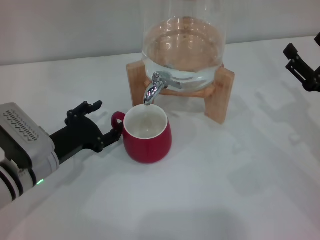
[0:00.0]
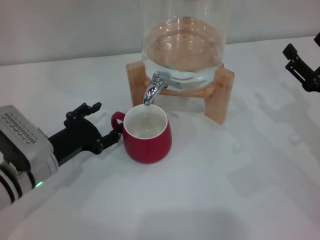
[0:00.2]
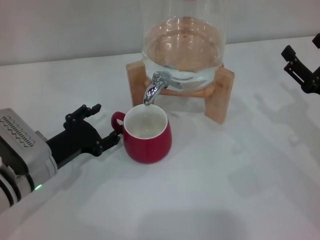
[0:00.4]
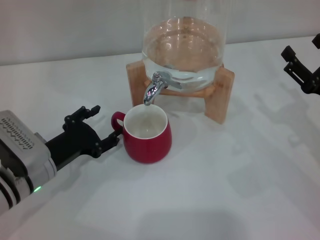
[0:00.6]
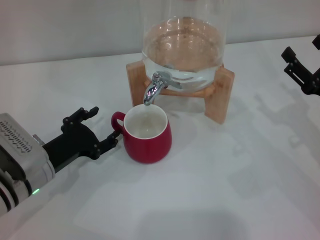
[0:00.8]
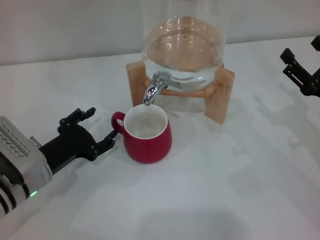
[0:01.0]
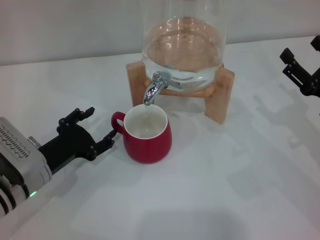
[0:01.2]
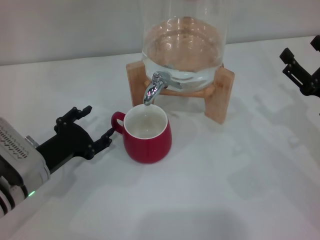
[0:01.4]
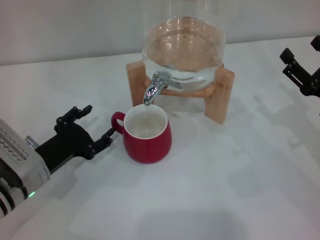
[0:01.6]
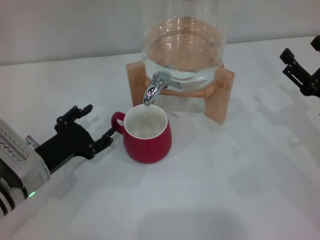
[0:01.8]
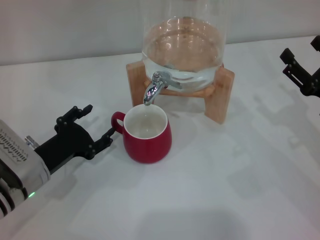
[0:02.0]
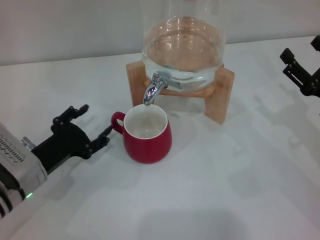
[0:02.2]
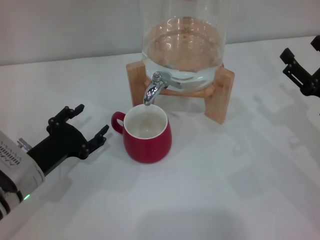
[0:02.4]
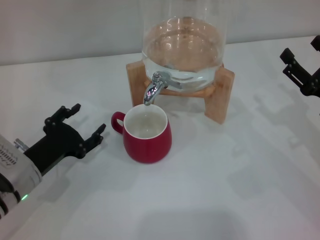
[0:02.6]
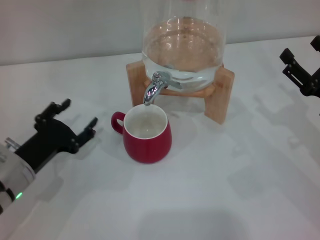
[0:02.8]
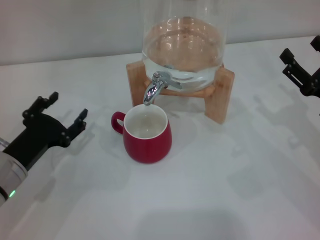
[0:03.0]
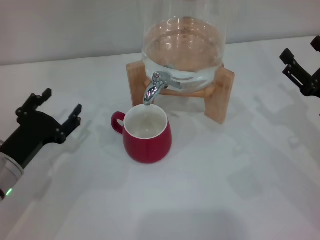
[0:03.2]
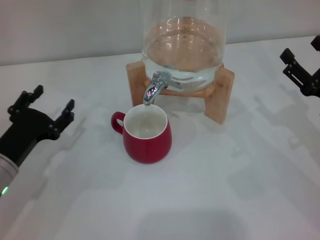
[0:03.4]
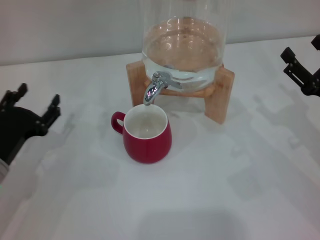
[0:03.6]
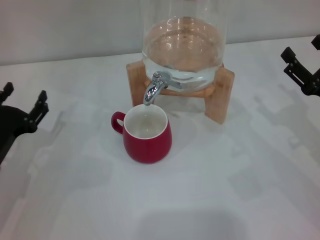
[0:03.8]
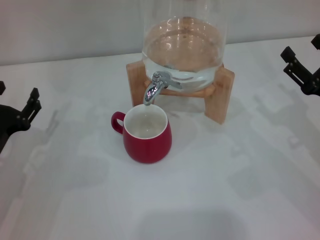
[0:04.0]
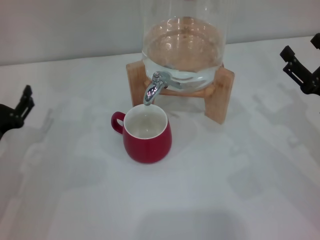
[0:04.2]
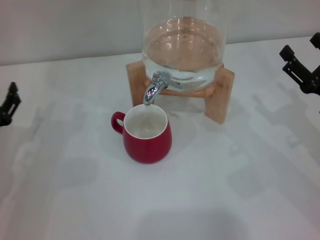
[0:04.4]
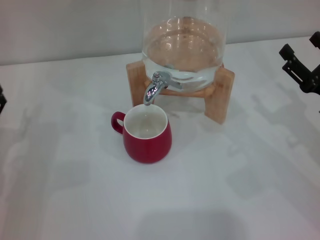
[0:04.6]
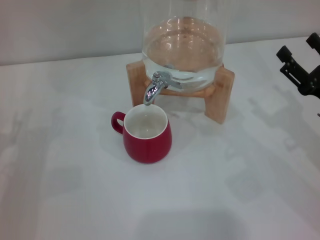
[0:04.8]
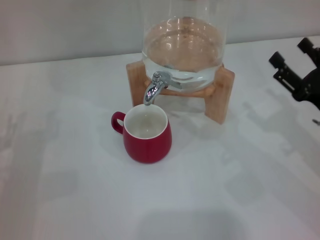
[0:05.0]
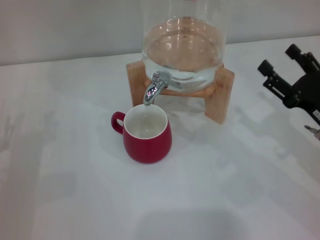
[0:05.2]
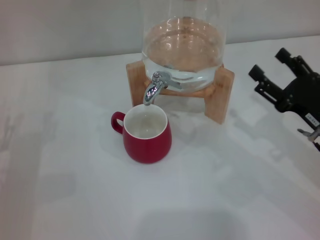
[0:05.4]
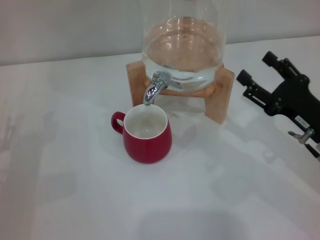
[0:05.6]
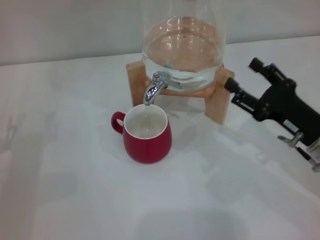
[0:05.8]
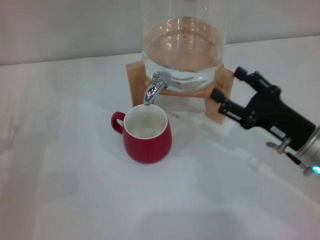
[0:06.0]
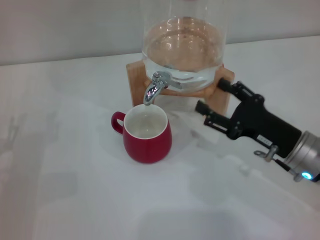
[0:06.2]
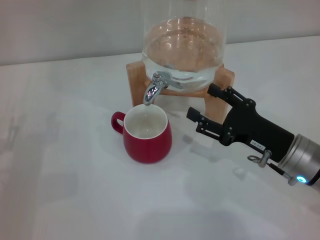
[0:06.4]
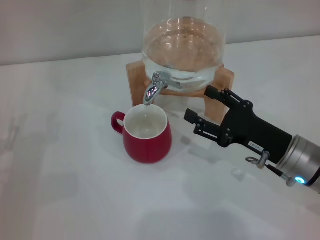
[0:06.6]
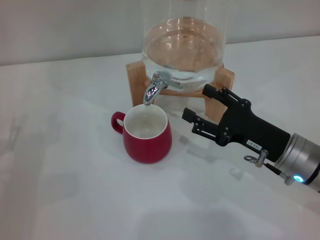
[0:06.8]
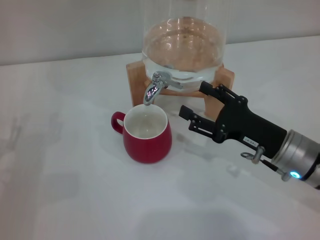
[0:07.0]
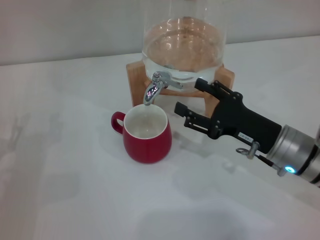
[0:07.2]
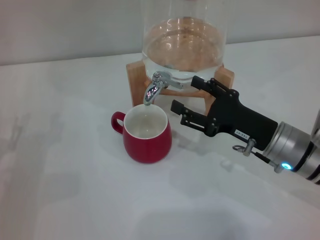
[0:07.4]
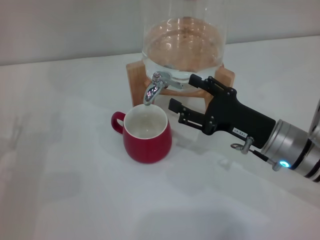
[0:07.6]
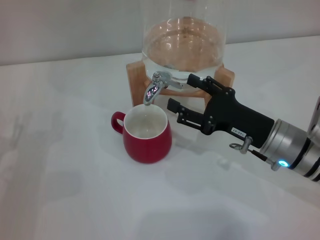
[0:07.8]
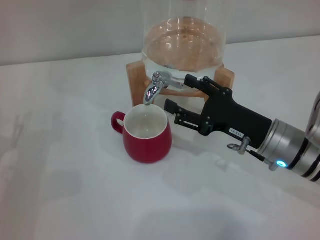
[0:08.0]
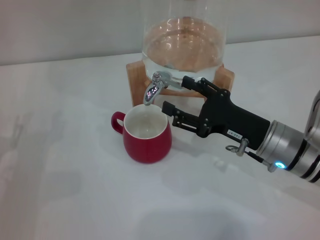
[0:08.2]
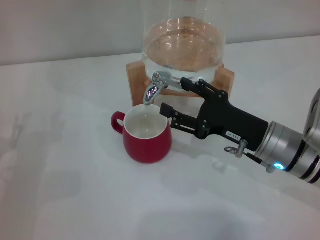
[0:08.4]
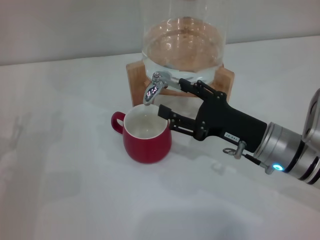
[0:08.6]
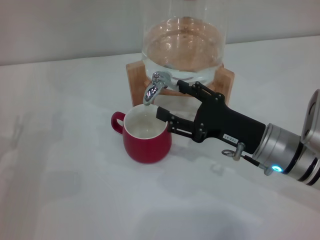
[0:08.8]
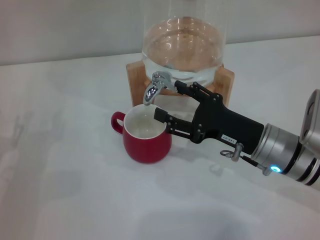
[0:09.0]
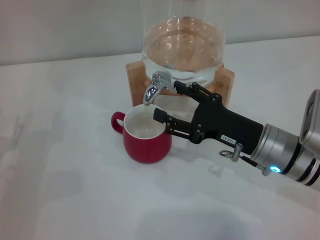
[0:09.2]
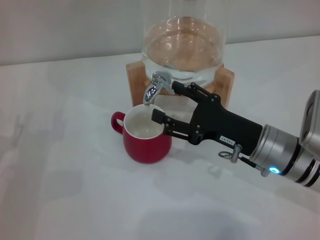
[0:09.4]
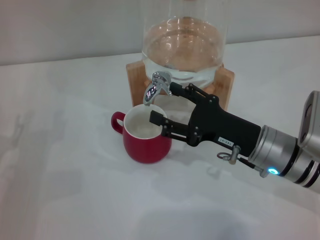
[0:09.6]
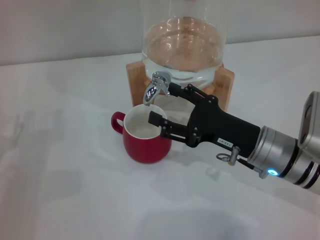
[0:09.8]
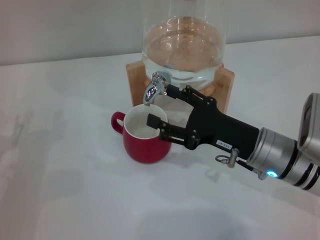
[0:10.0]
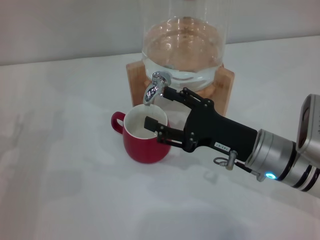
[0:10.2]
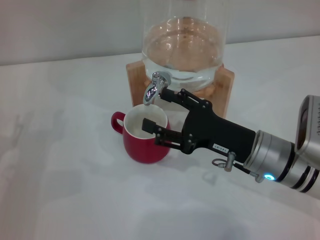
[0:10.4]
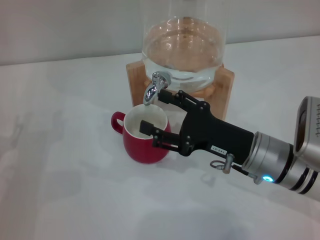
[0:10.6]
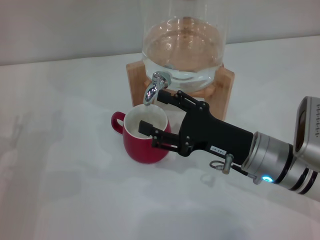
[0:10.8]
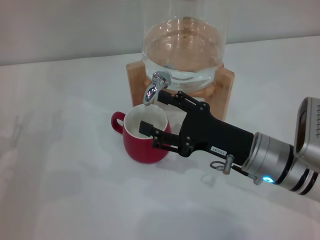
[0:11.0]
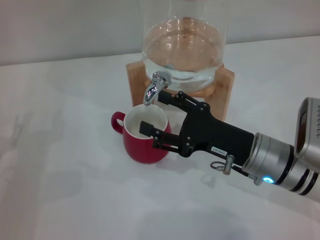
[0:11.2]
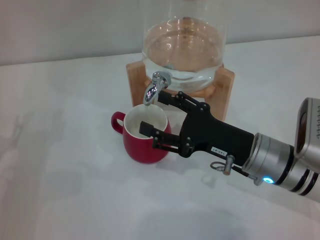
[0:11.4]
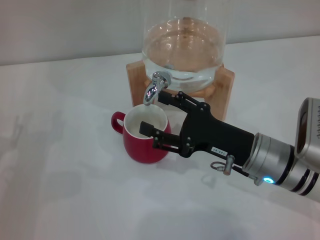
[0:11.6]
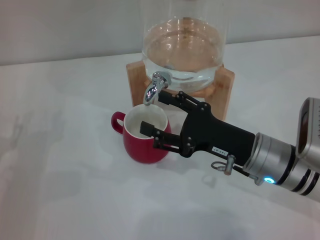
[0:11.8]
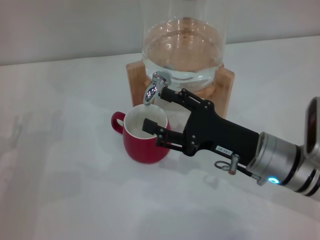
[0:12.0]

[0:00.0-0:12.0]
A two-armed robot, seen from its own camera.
Task of the whole recording: the left gripper pick up the red cup and place it horizontally under the faucet, the right gripper turn on the faucet to fill the cup, and then turn off the faucet.
Step, 0:01.0 to 0:12.0: Open the dispenser valve and fill the cup with water with the right gripper.
0:00.0 to 0:03.0: The grippers stay close to where they were, moving slightly.
0:04.4 to 0:06.0: The right gripper shifts about 5 cm to the left.
0:06.0 to 0:07.6: The grippers make only small movements.
0:07.6 to 0:10.4: The grippers make only small movements.
0:10.4 to 0:12.0: The two grippers keep their place.

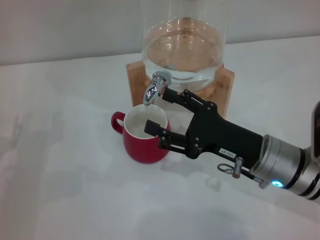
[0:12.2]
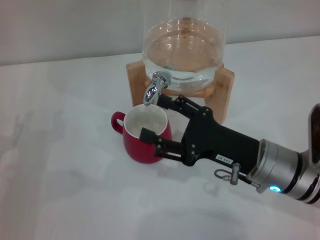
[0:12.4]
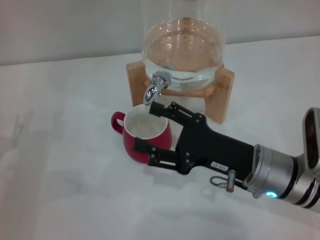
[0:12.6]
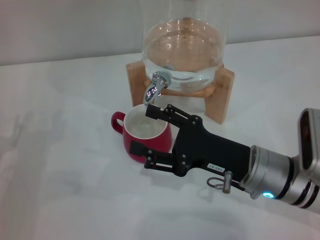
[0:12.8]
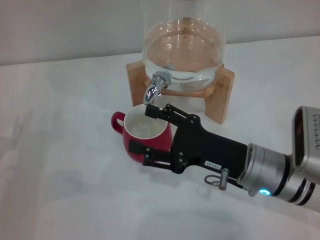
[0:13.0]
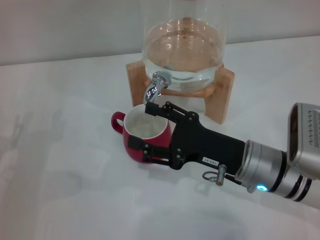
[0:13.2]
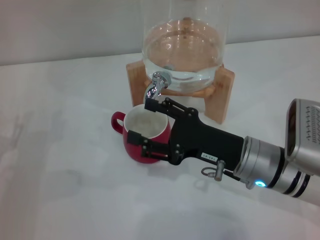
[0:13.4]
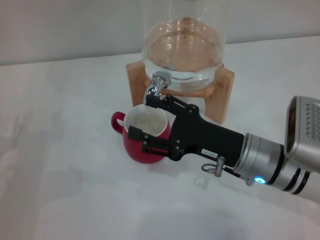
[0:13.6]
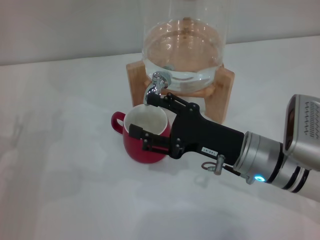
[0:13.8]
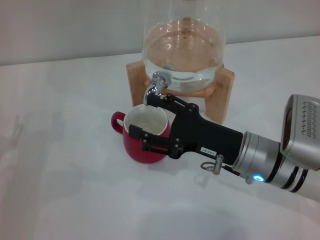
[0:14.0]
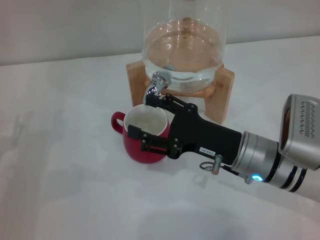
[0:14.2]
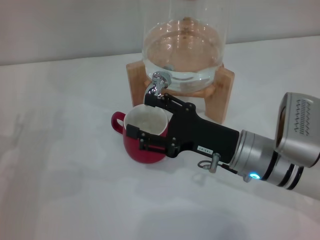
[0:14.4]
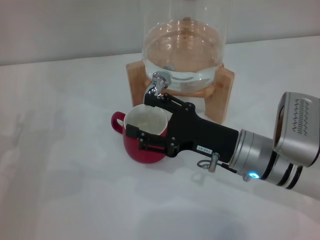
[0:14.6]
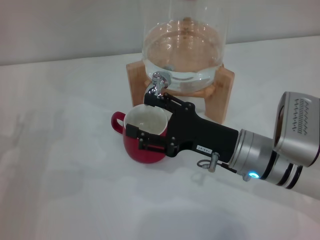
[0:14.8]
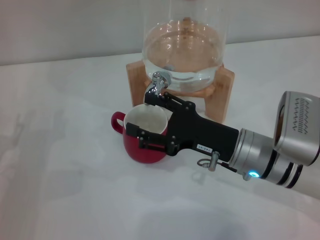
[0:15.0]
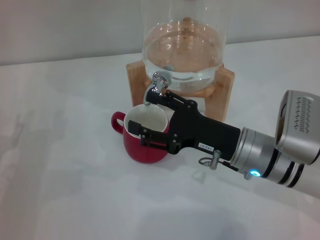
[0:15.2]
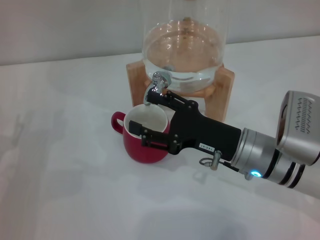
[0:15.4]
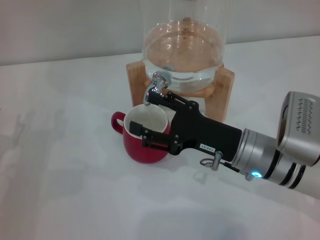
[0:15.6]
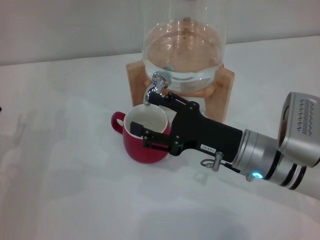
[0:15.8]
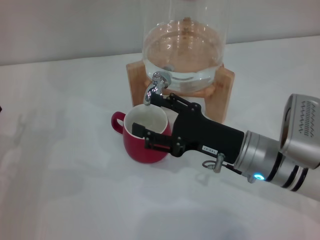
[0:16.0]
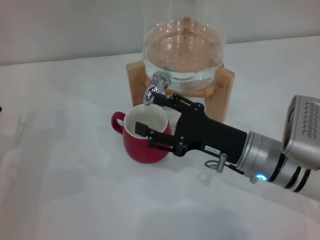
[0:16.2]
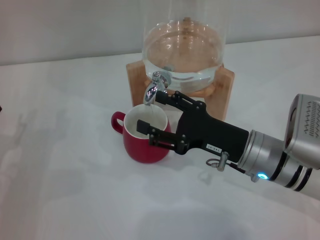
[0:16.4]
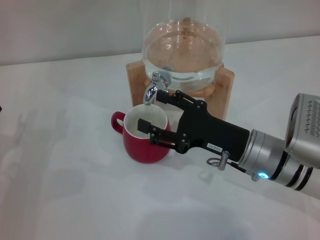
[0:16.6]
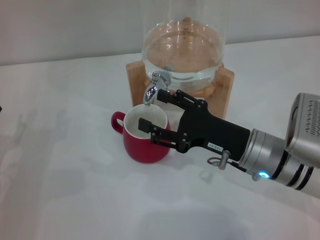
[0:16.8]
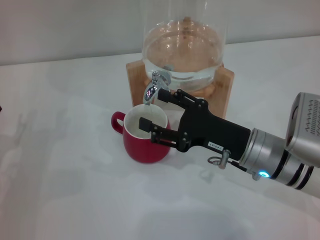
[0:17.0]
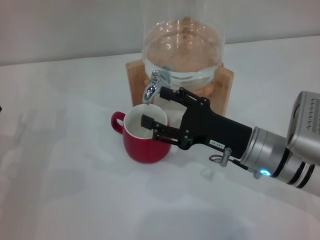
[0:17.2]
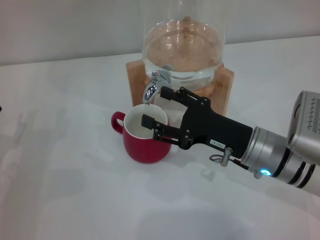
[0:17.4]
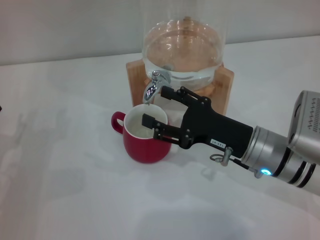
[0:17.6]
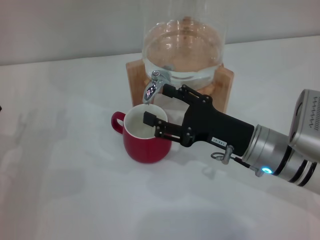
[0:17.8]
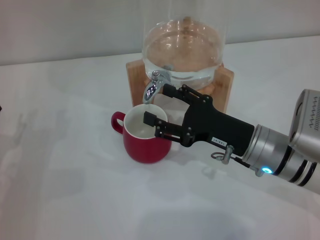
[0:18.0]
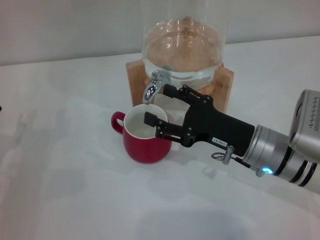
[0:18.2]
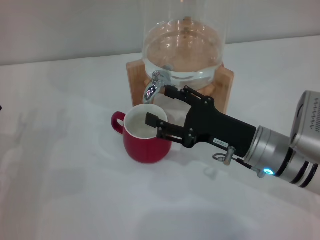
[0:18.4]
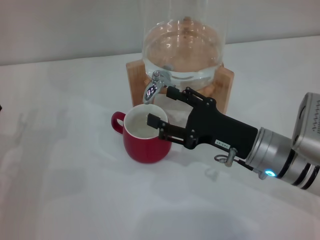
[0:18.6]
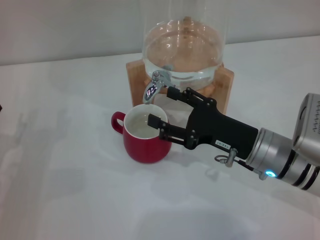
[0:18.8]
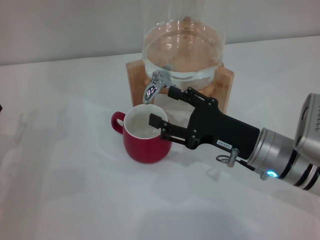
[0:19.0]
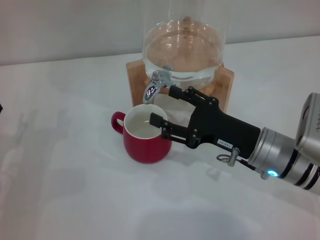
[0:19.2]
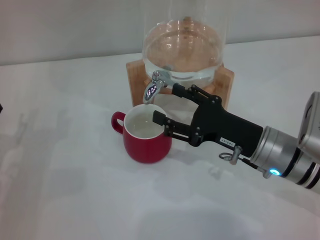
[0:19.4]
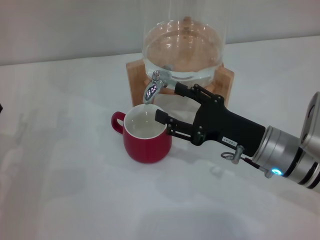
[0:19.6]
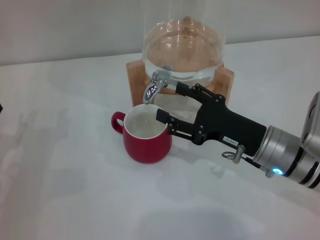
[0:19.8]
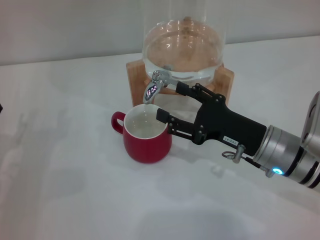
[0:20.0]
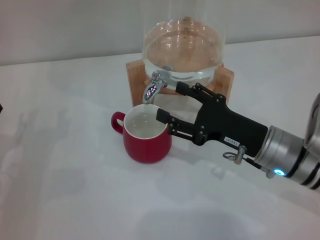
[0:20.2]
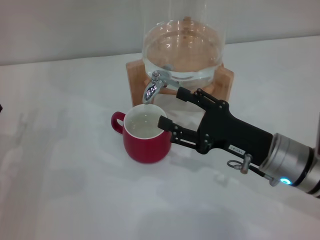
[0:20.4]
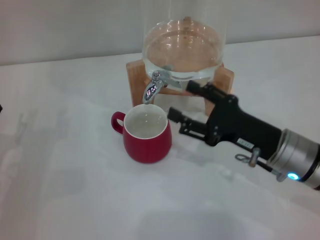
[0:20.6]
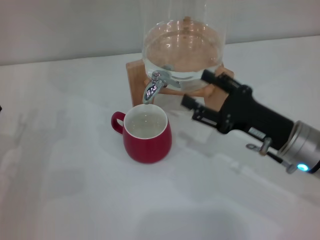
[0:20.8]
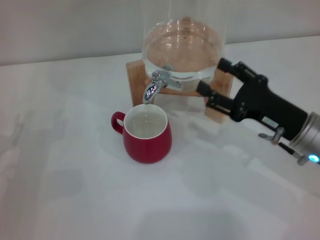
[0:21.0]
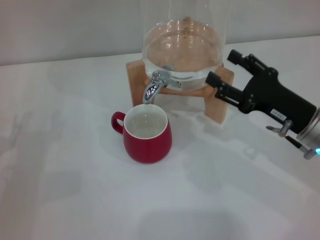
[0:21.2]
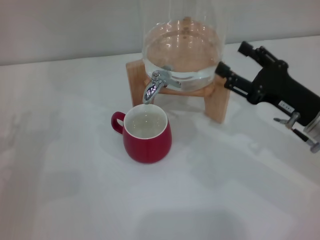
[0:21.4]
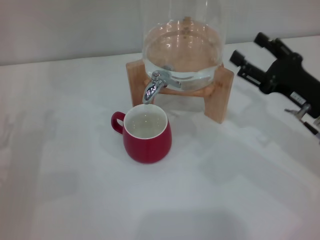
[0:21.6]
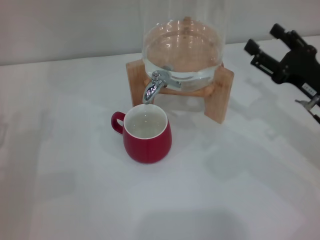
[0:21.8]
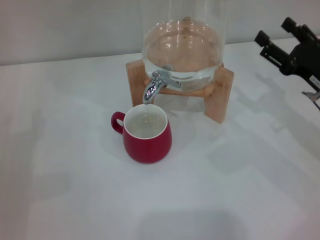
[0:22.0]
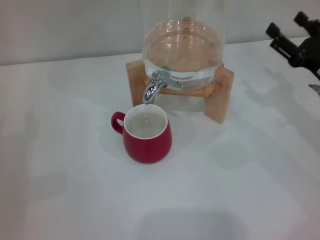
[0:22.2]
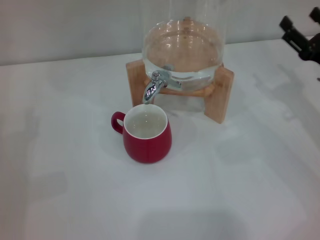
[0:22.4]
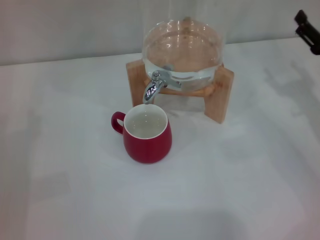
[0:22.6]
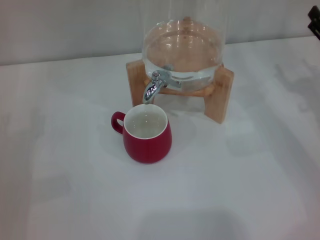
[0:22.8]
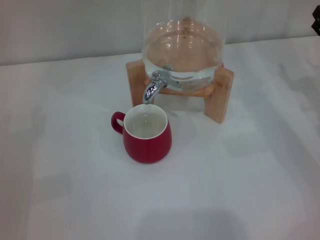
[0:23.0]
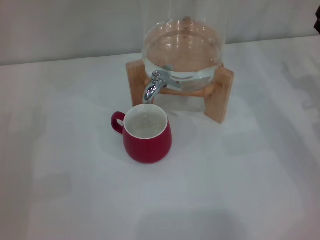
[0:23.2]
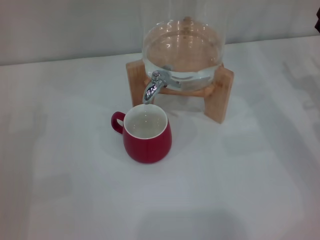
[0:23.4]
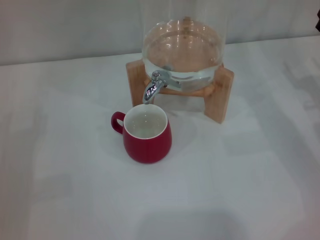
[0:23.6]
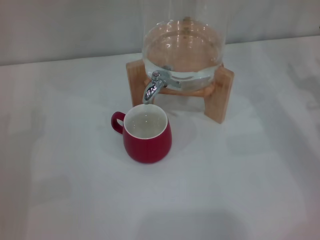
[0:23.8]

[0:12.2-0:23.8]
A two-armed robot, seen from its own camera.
Task of the whole recording: the left gripper pick up the red cup and place it horizontally under the faucet, the right gripper turn on the faucet to fill the cup, and then turn off the faucet.
Step, 0:12.2 to 0:20.2: Close the dispenser valve with the right gripper.
0:12.2 to 0:13.6: The grippers move only a little.
0:13.6 to 0:16.6: Both grippers stay put.
0:16.6 to 0:18.0: The two grippers keep their place.
0:18.0 to 0:19.4: The two grippers keep their place.
0:19.4 to 0:21.0: The right gripper is displaced to the right by approximately 5 cm.
0:21.0 to 0:22.4: The right gripper shifts roughly 10 cm to the right.
